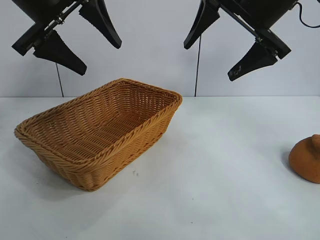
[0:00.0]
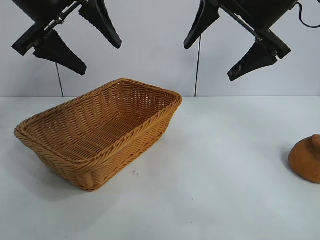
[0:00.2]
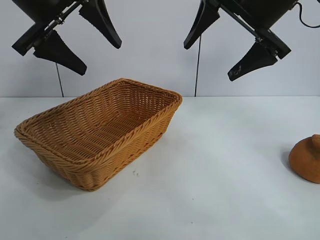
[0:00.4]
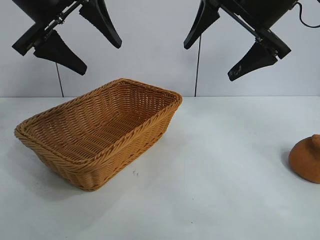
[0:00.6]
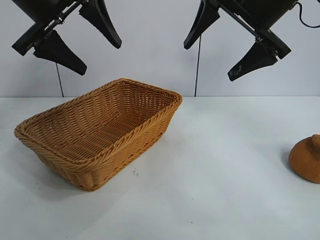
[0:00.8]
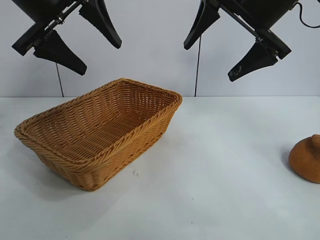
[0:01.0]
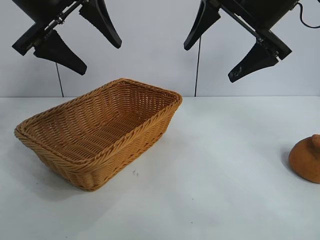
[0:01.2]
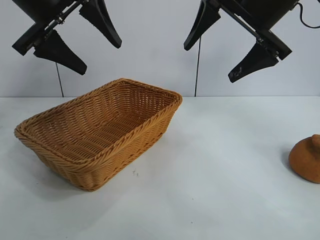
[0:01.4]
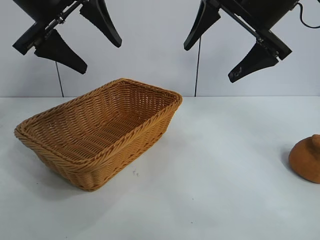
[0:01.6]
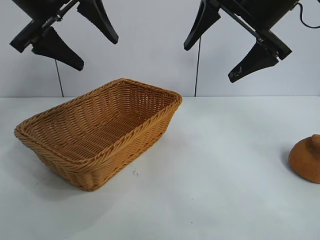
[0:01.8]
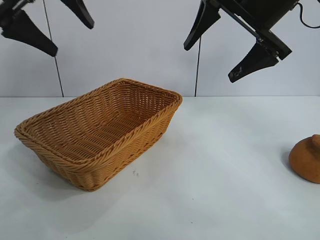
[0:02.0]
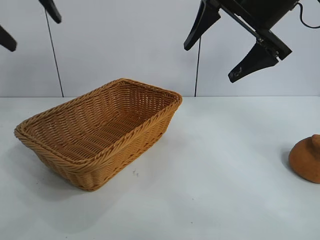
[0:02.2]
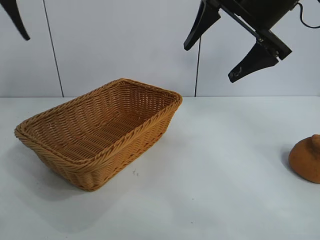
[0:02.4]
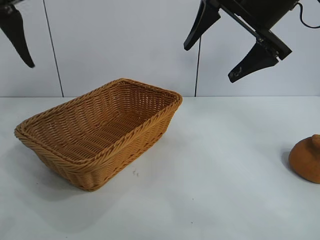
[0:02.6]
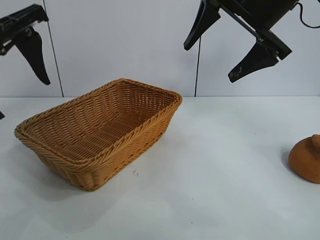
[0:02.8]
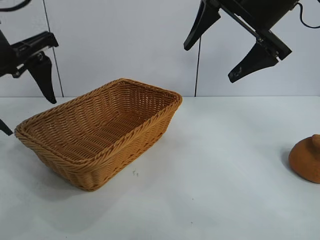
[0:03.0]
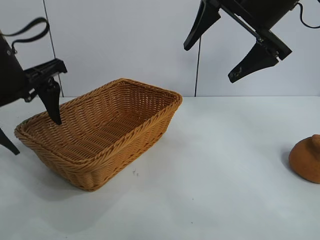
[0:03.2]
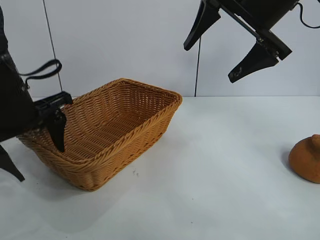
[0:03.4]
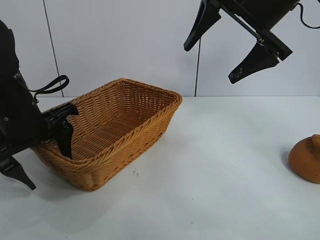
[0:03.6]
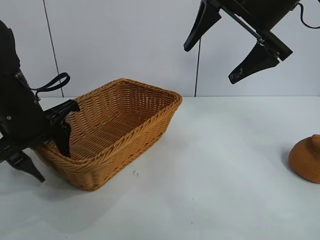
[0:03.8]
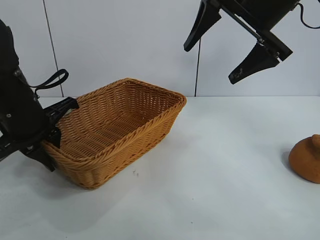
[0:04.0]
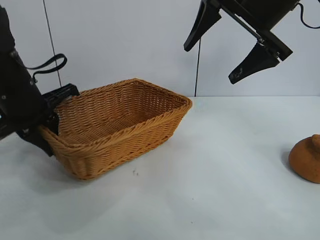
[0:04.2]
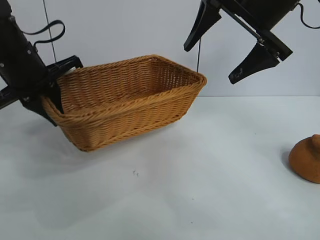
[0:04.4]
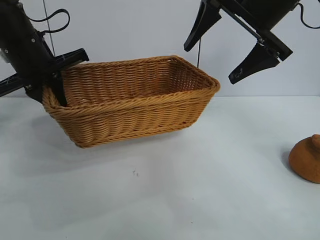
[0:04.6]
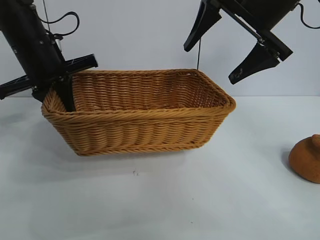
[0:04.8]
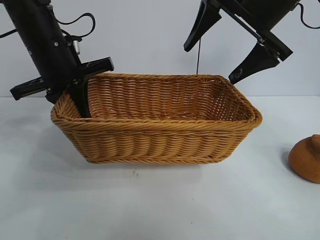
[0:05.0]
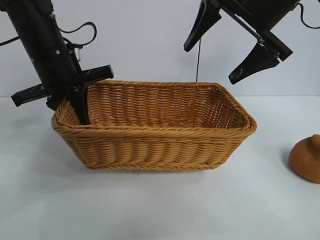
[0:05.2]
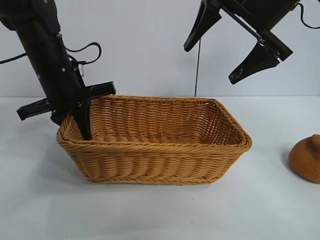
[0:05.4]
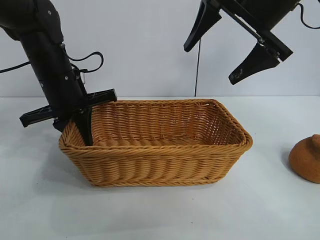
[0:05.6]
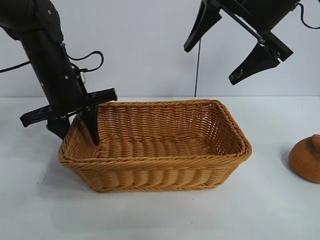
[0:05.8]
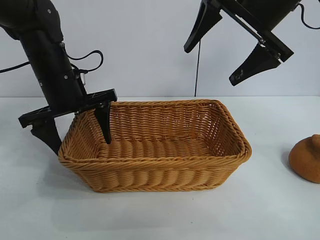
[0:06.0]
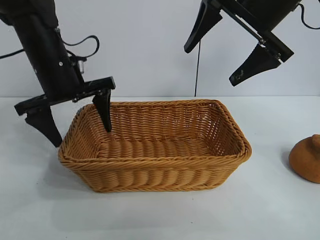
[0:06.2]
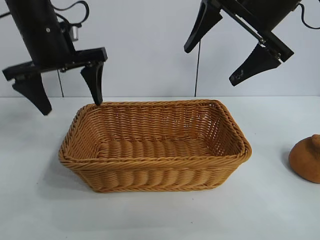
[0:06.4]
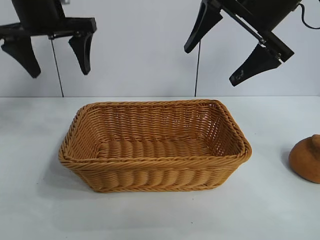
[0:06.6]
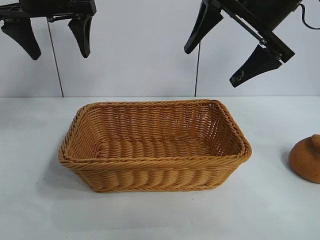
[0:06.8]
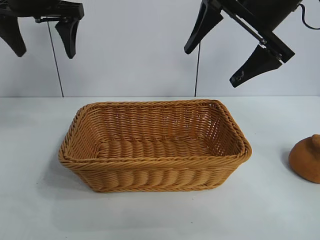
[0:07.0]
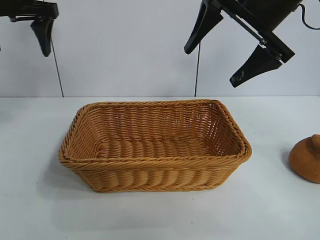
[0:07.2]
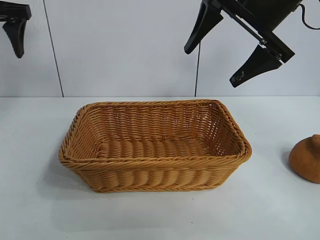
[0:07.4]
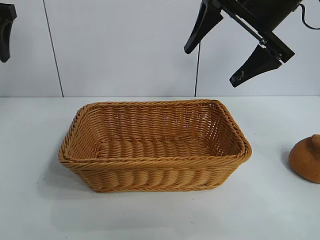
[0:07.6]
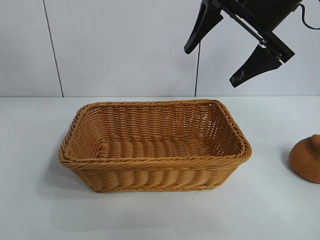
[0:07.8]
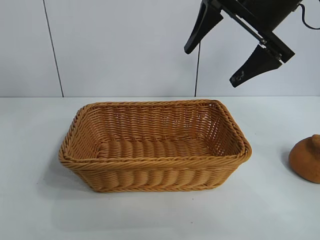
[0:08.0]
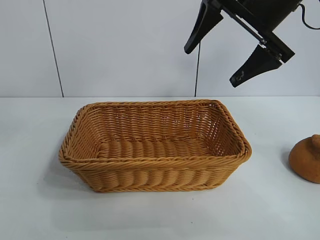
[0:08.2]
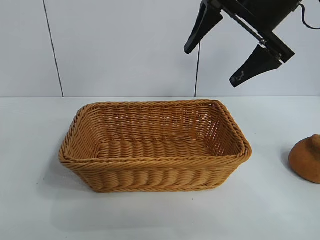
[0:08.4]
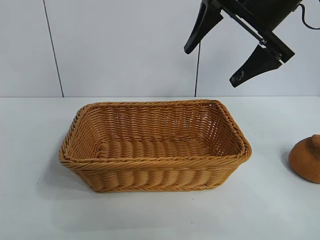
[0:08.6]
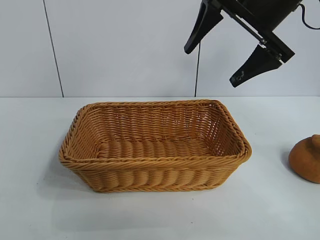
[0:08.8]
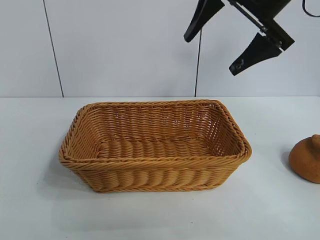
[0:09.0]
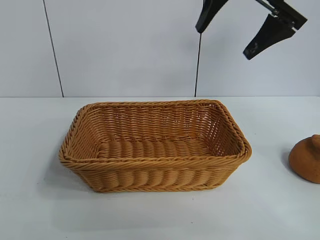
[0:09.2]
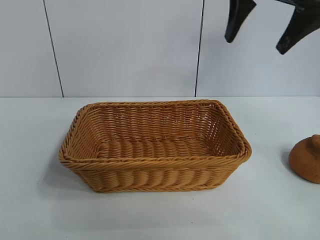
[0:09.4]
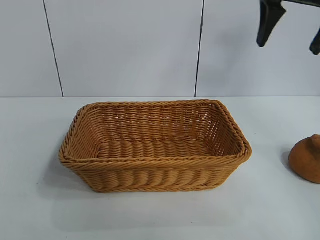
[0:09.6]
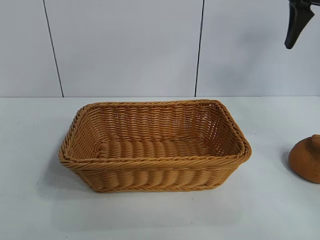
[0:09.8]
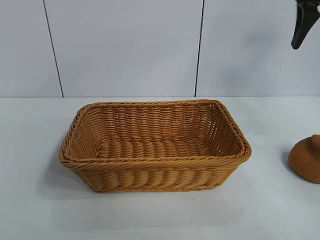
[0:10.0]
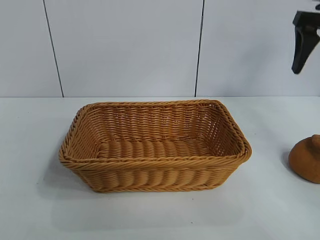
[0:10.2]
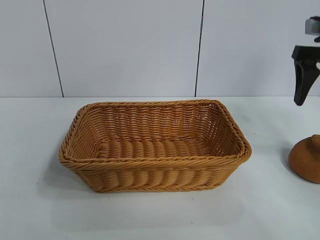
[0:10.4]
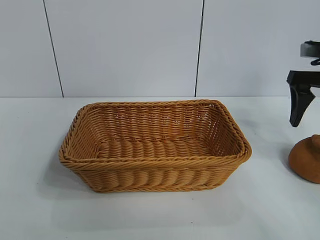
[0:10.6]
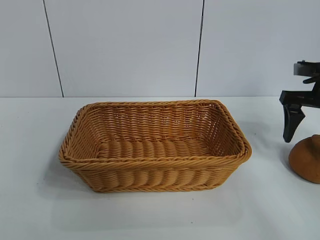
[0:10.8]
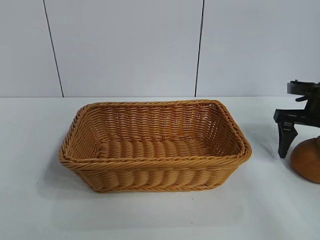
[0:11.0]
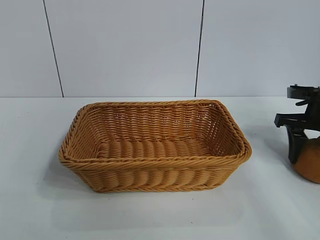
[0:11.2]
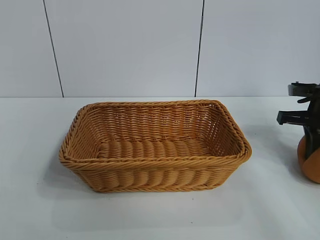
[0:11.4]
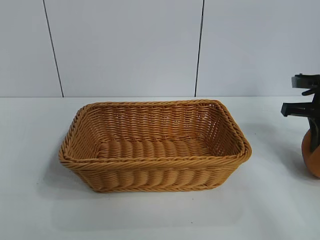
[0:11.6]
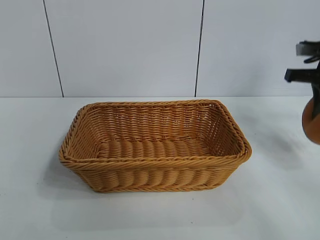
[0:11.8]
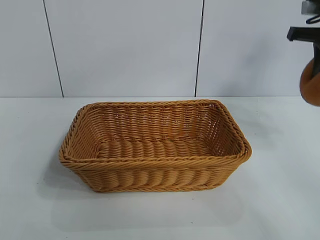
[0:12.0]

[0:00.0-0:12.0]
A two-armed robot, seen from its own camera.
Task of the whole recording: pick up the orange and put it into the basket.
Step, 0:00.8 to 0:04.0: Grasp the basket with left gripper.
Step, 0:04.2 to 0:05.8: Place the basket in the center of view with left gripper.
Step, 0:06.0 to 0:11.2: Grasp the orange with right gripper.

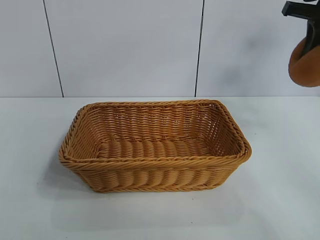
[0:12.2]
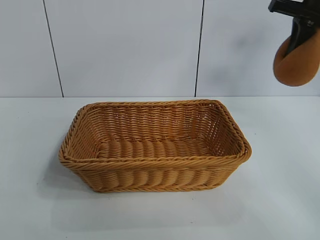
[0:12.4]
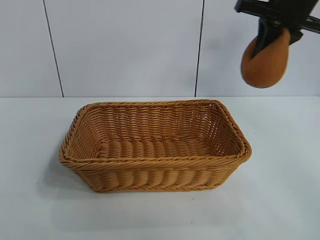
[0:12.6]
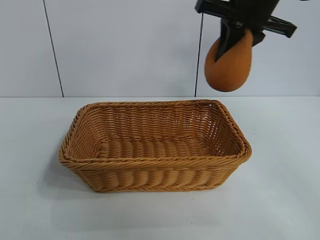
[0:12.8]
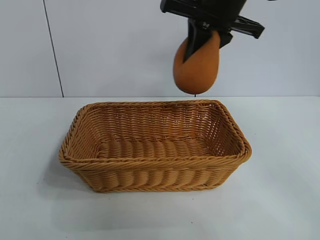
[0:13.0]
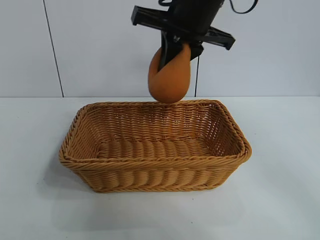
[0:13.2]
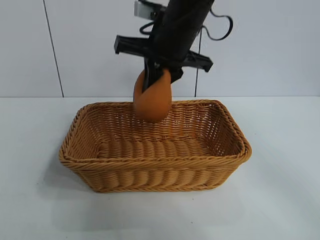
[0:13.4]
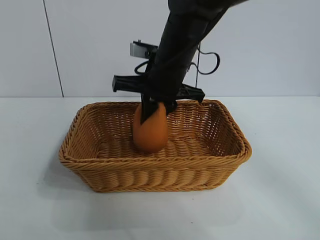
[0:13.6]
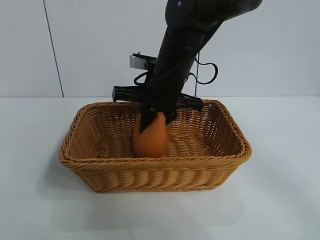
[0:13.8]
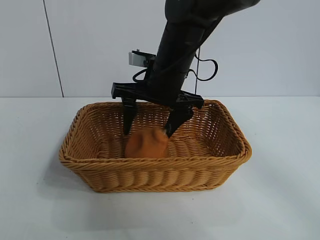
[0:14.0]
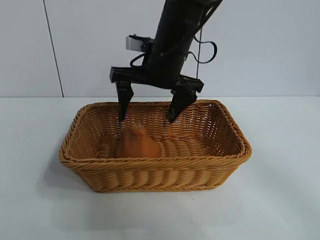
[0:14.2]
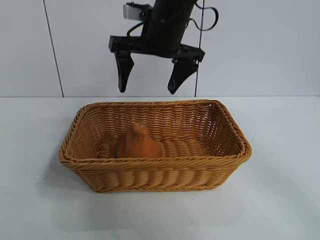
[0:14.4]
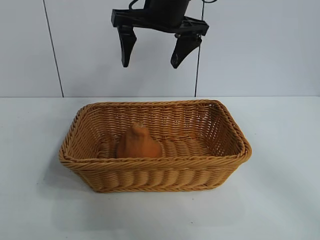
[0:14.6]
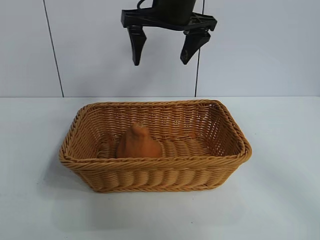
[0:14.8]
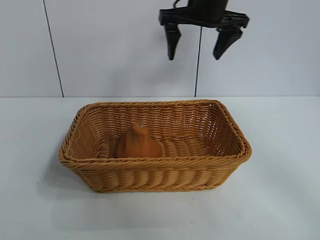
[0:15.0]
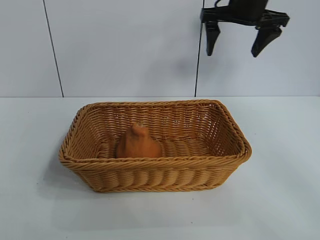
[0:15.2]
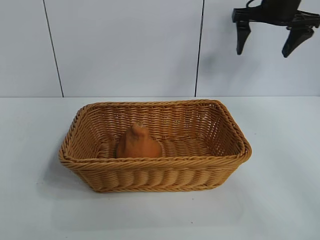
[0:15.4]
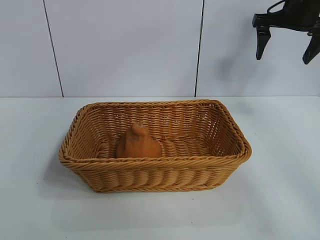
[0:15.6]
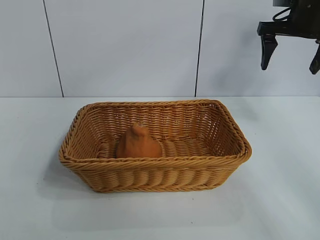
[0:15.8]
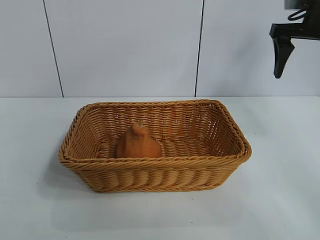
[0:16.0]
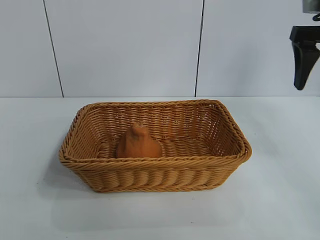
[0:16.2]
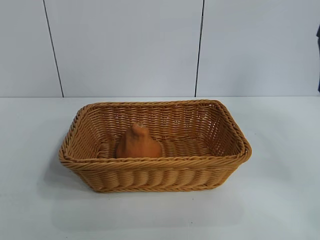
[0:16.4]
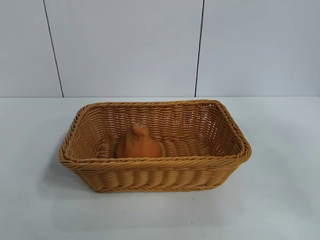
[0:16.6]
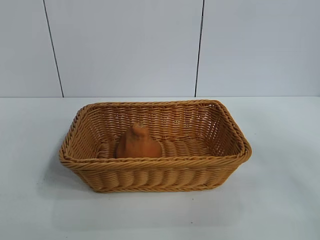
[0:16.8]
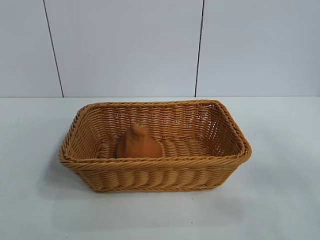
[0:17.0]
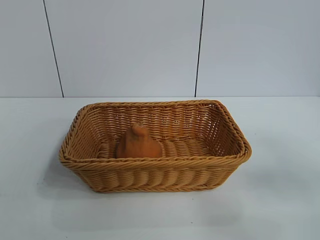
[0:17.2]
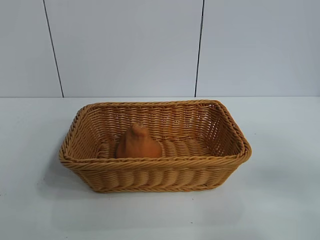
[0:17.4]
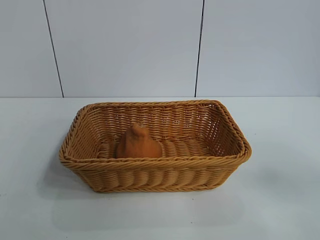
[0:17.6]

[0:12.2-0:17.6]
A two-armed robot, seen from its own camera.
Task of the whole recording: pick up the orange and put it into the basket.
Step, 0:12.2 to 0:14.0: Place the orange in the basket with right gripper.
